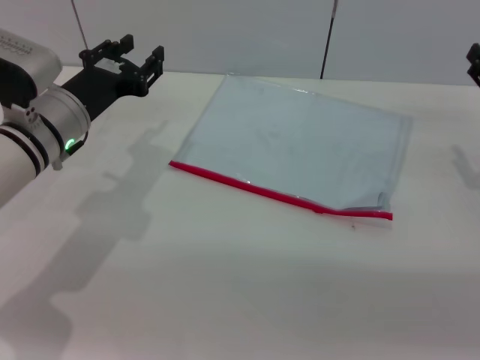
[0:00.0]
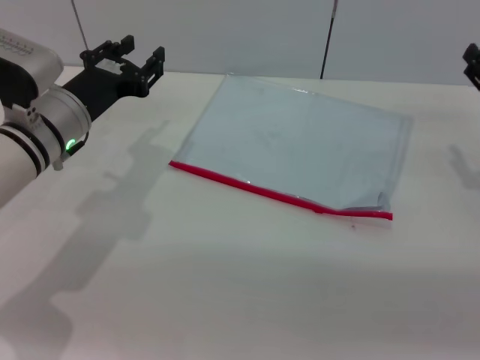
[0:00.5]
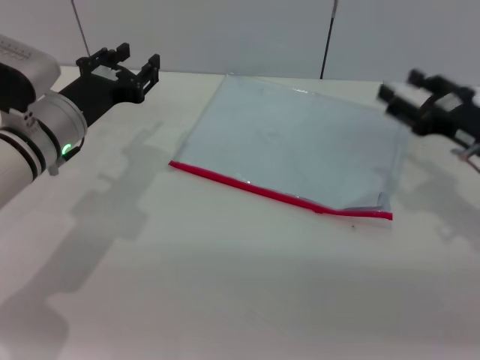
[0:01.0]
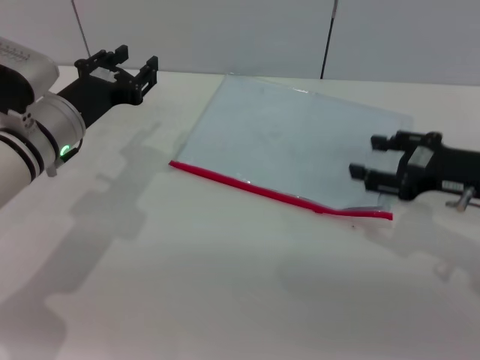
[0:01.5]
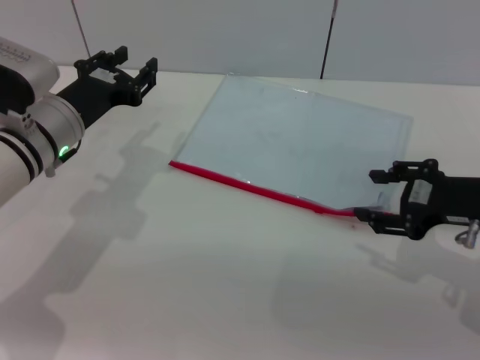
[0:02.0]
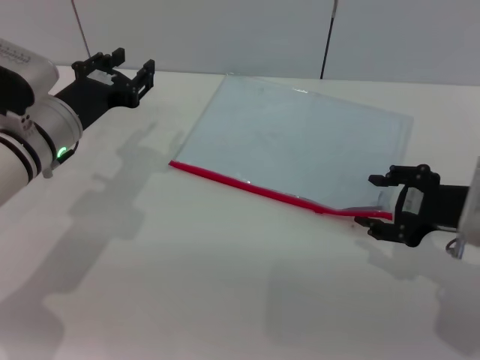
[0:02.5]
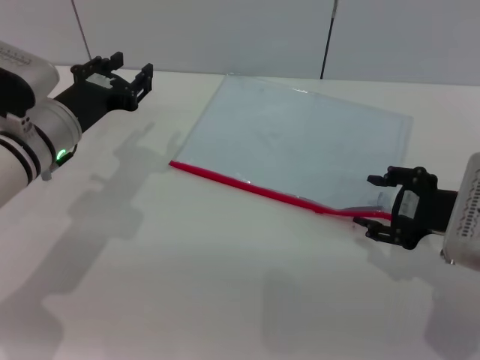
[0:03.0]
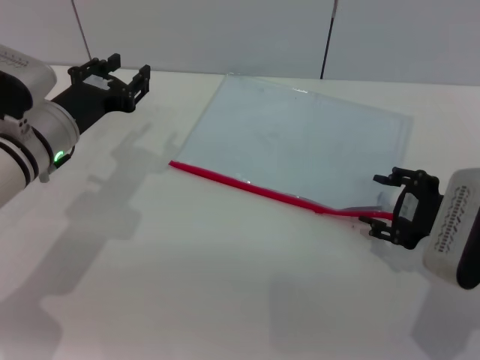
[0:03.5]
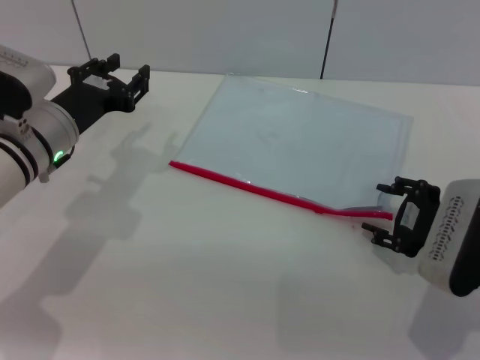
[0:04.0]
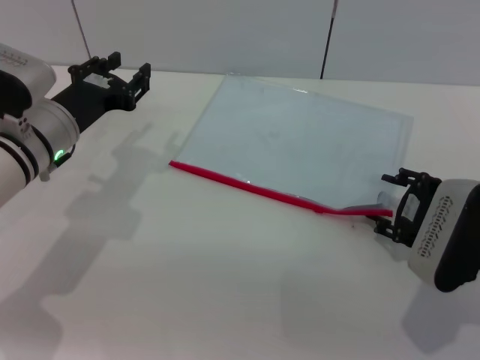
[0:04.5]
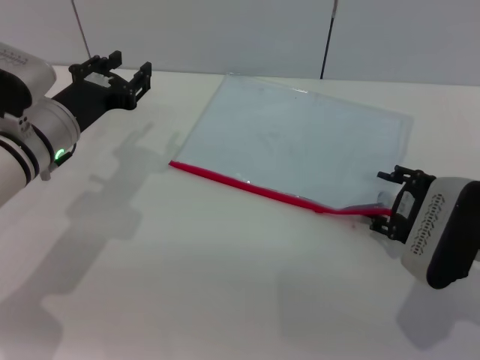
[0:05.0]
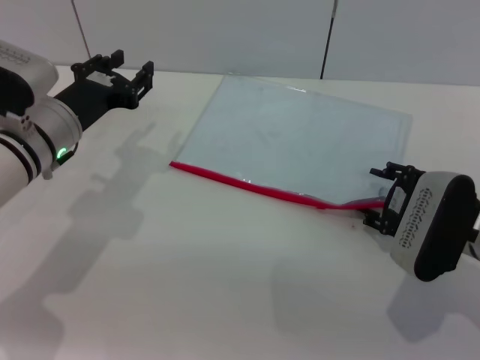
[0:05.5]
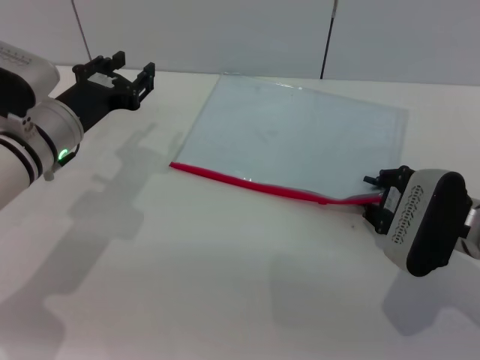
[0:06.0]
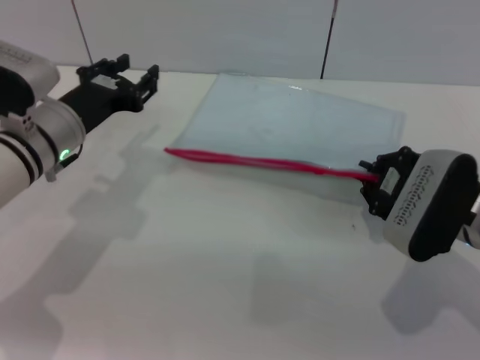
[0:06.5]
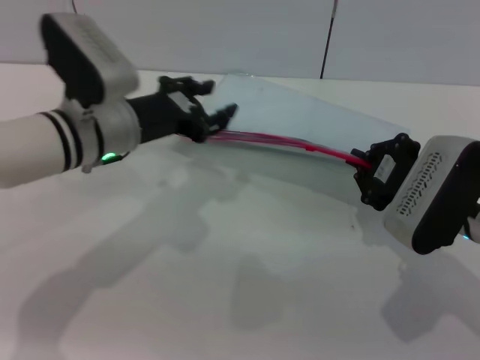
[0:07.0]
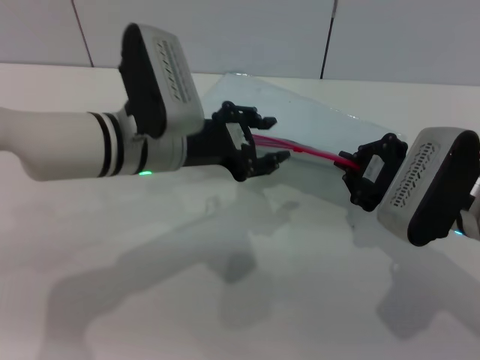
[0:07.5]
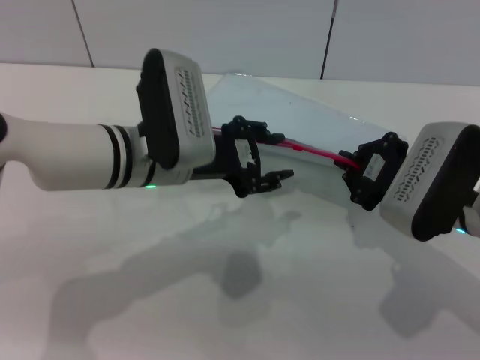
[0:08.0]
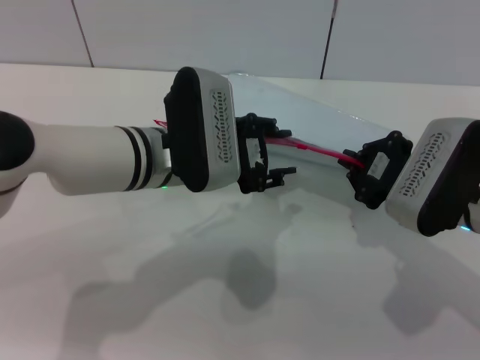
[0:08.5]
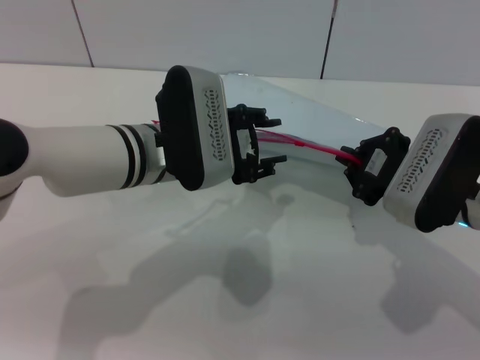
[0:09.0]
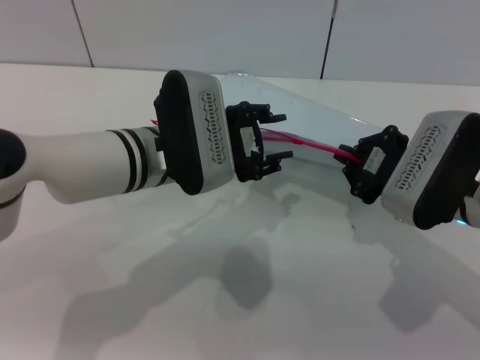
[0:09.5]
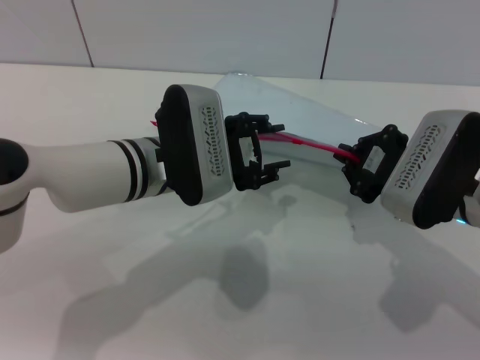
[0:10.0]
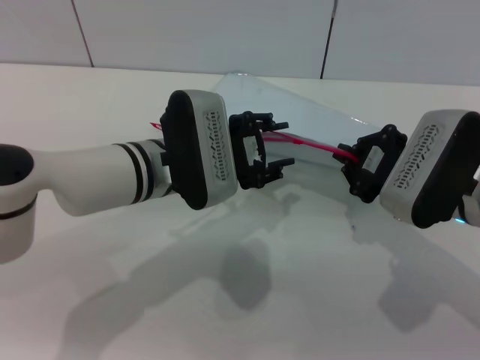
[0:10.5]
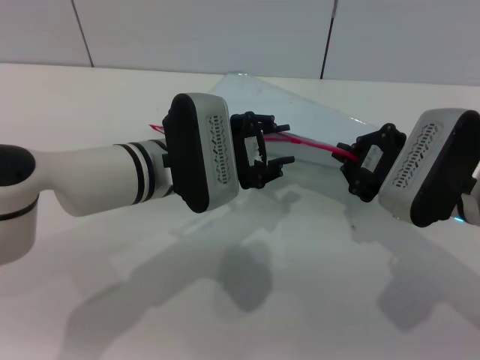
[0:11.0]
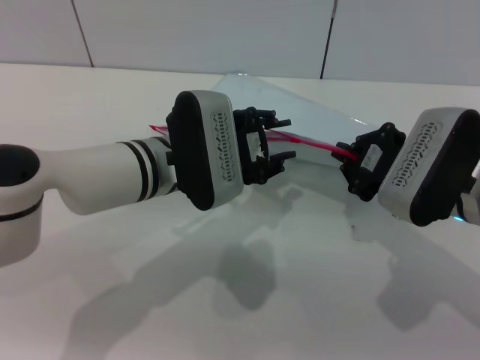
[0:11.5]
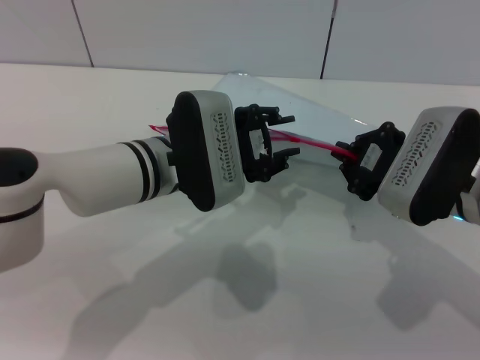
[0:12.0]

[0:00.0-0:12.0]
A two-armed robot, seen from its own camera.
Step, 0:00.0 to 0:06.5: Pick up the transparent plastic bag with the right gripper.
0:00.0 to 0:02.0: The right gripper heads to the left, covering approximately 5 cm.
0:02.0 to 0:04.0: The right gripper shifts by some 5 cm.
0:04.0 to 0:06.0: There are only small adjustments of the grippers.
0:06.0 to 0:08.0: The right gripper ends up about 5 cm from where it was, and closes; the left gripper goes approximately 10 cm to the right.
0:08.0 to 0:12.0: There are only small adjustments of the grippers.

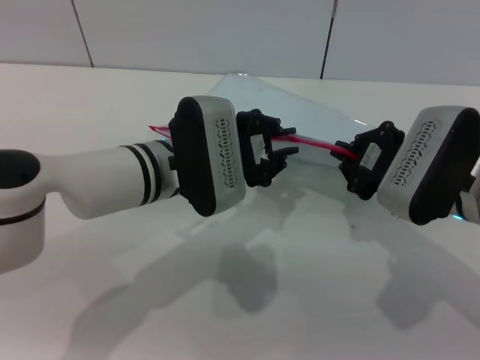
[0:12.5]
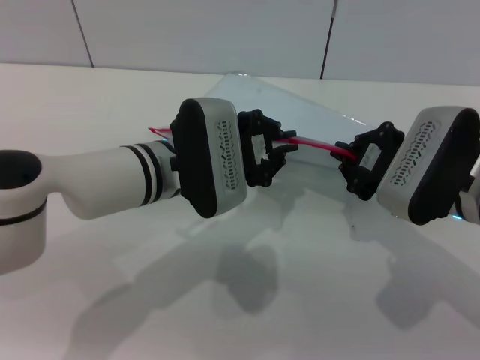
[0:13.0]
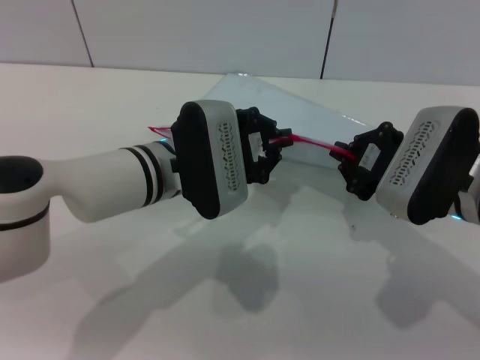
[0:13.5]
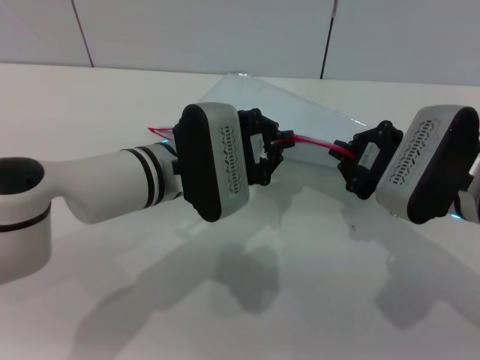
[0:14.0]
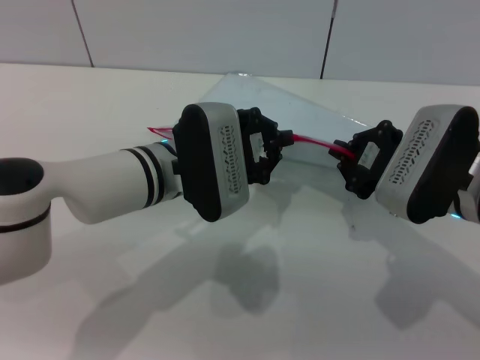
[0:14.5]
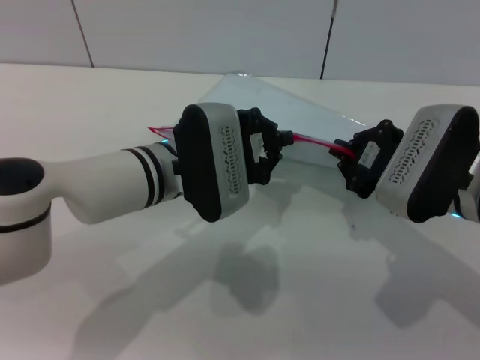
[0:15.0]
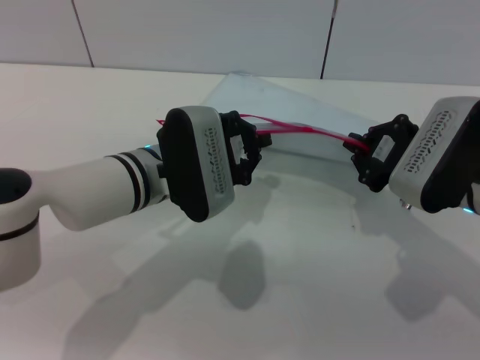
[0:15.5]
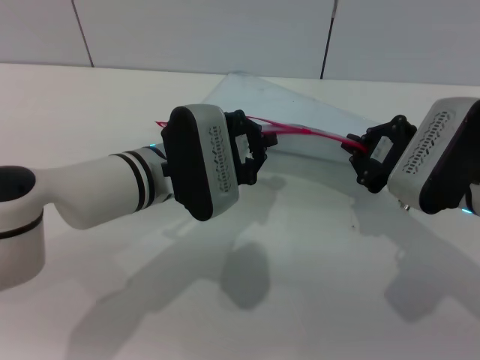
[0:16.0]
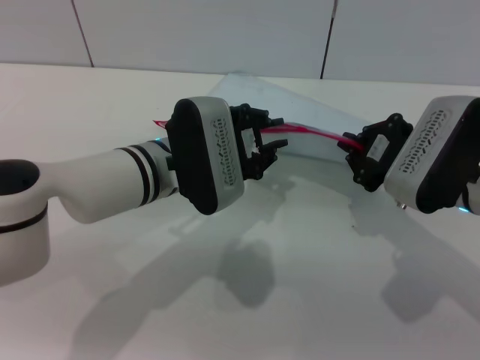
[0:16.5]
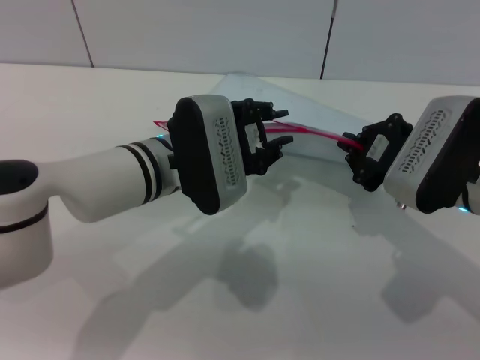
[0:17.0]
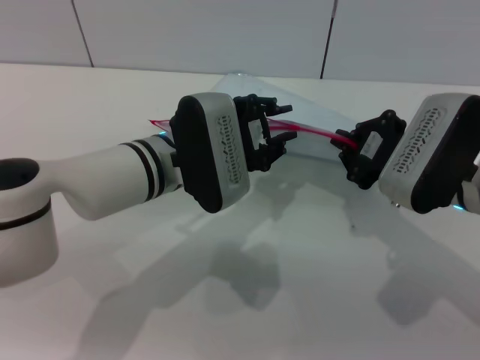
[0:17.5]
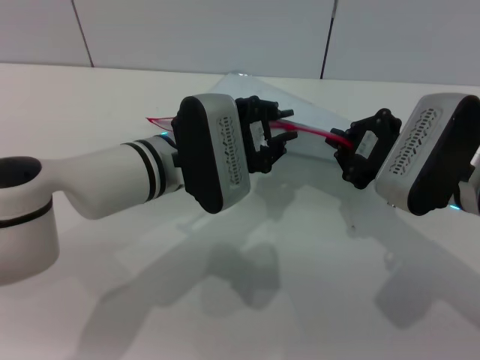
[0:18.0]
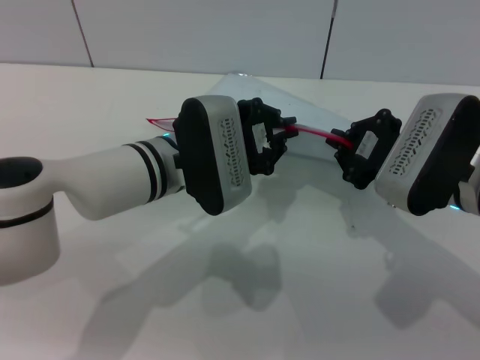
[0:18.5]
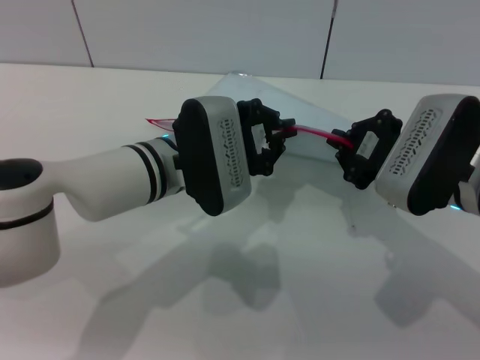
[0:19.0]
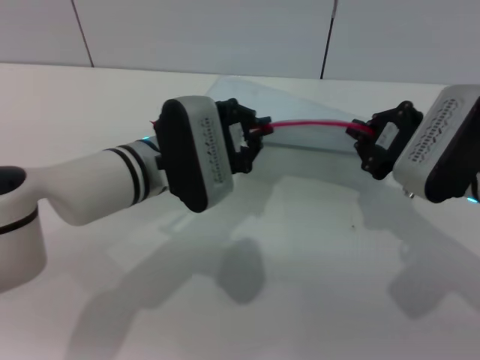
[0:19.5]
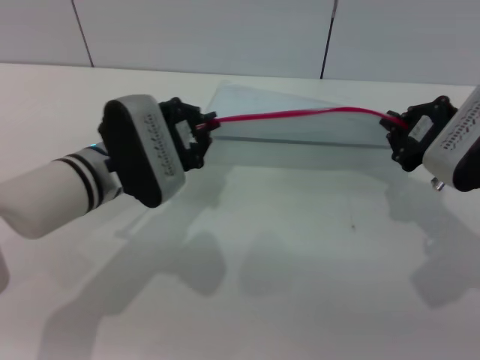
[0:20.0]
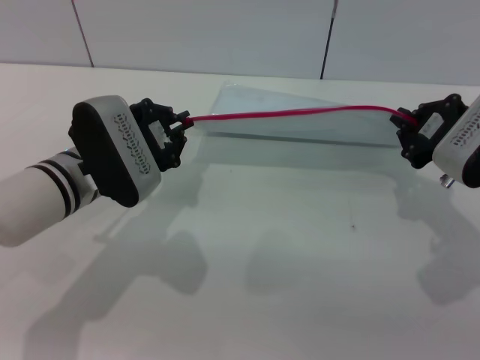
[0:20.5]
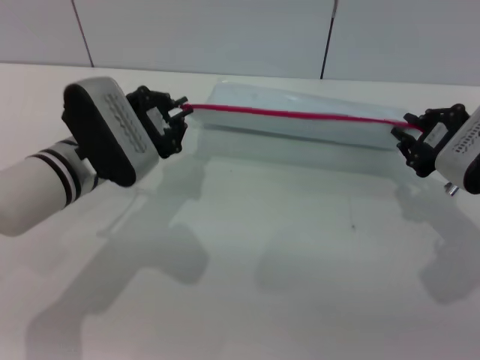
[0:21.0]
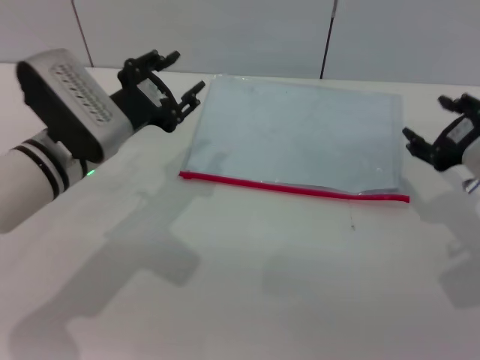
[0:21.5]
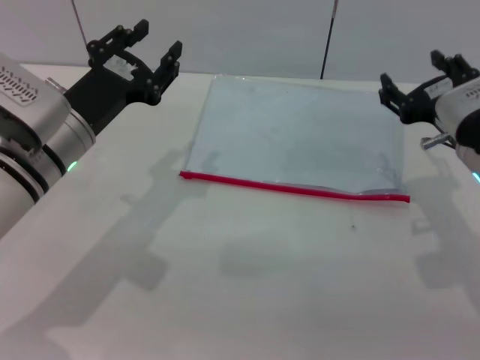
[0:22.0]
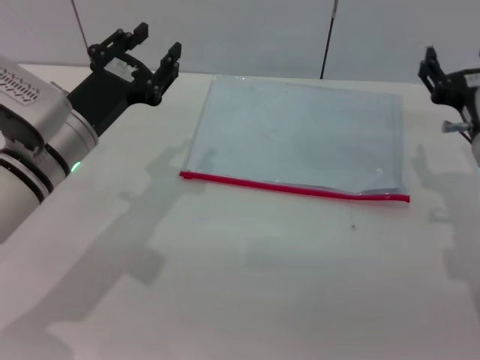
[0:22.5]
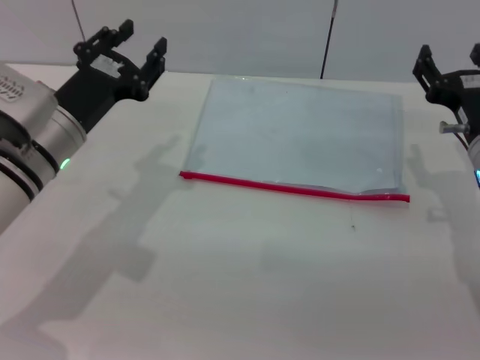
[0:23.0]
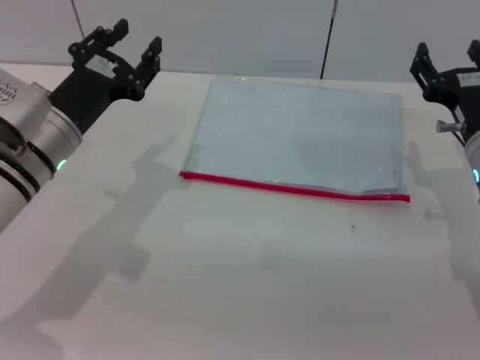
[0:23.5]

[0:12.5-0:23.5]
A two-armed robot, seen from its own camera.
Step, 0:12.5 to 0:21.0: Pulling up the zipper on the transparent plastic bag with the left gripper to close it.
Step, 0:21.5 to 0:22.0: Place the transparent plastic bag.
0:12.5 to 0:14.5: The left gripper closes up.
0:14.5 to 0:16.0: The grippers make only small movements.
0:16.0 to 0:18.0: The left gripper opens.
0:18.0 to 0:20.0: The left gripper heads to the left, covering approximately 5 cm, and closes up.
0:20.0 to 0:21.5: The right gripper opens; the left gripper opens.
0:21.5 to 0:23.5: The right gripper changes place by about 5 cm, while the left gripper opens up.

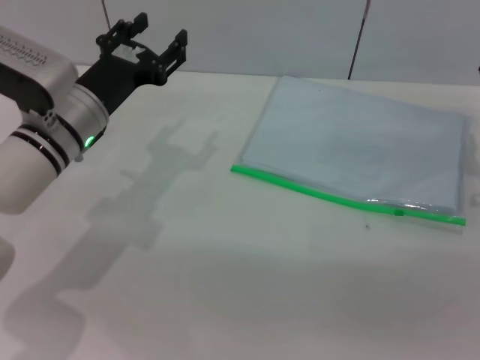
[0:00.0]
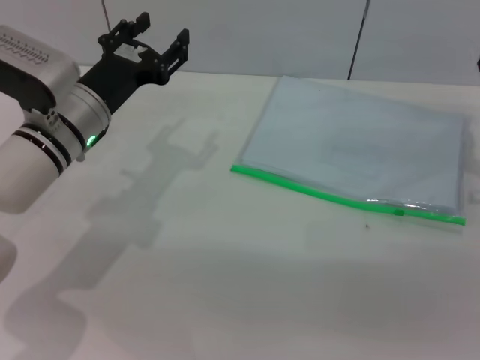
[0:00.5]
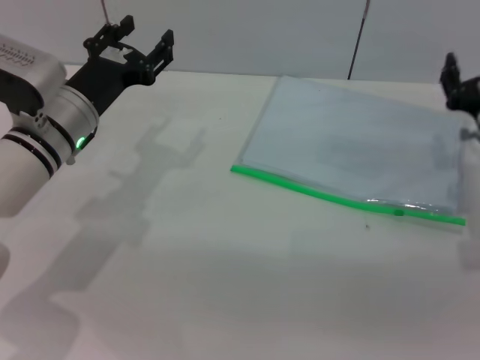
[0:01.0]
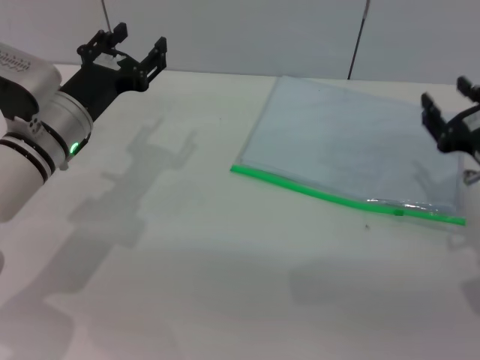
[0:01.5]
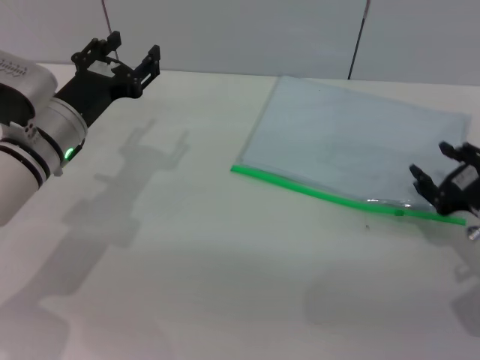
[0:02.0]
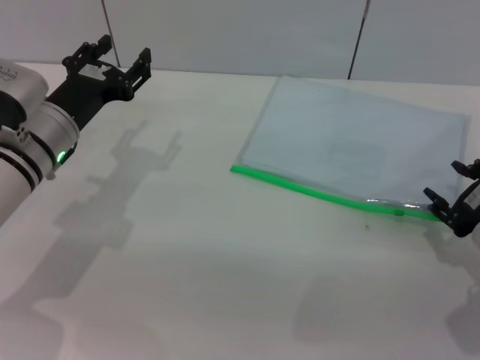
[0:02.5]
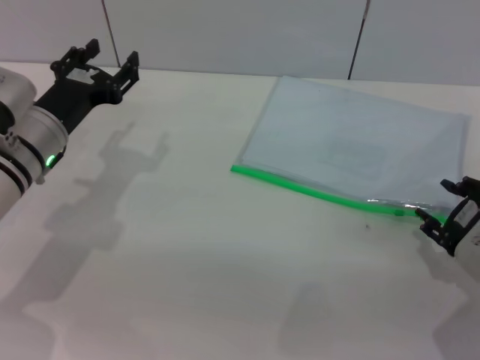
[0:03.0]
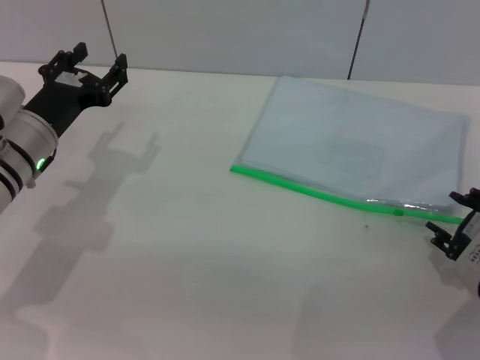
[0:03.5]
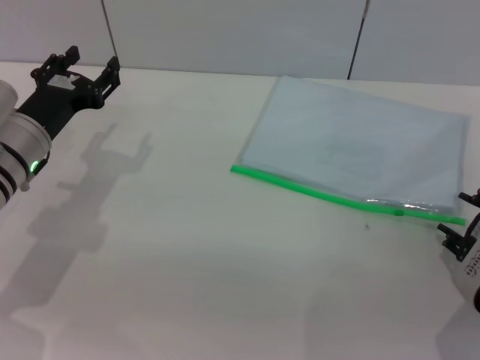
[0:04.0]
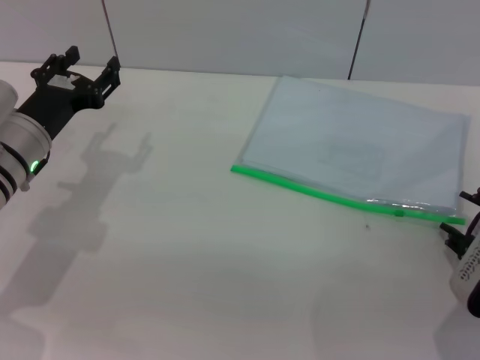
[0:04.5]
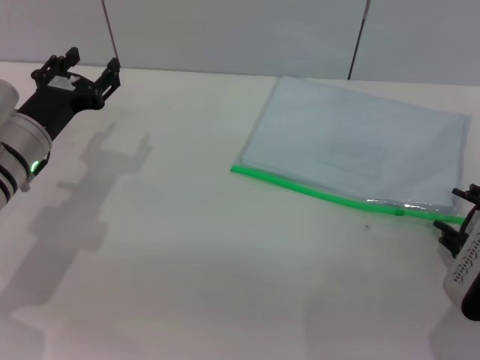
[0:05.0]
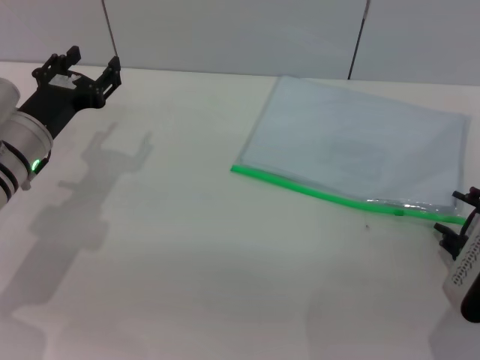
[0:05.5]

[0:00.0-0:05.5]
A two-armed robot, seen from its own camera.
0:00.0 to 0:02.0: The right gripper travels backward by about 5 cm.
0:03.5 to 0:05.5: There are only small adjustments of the grippers.
